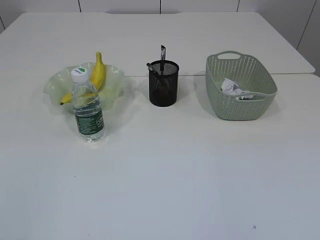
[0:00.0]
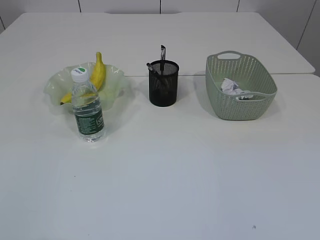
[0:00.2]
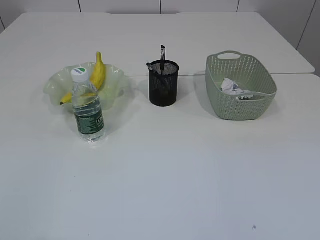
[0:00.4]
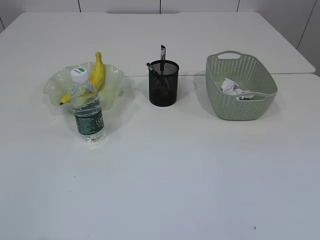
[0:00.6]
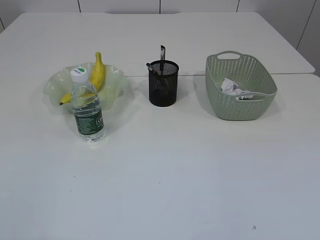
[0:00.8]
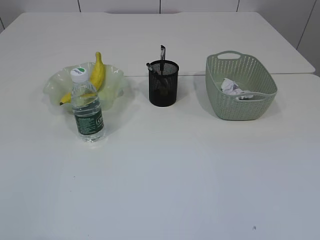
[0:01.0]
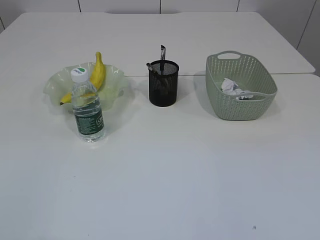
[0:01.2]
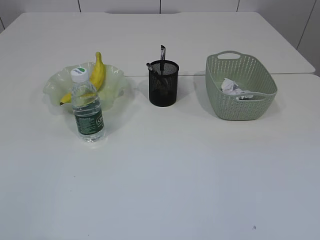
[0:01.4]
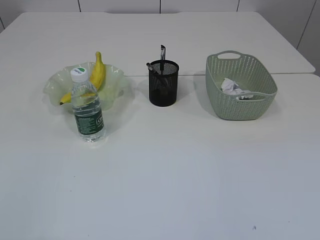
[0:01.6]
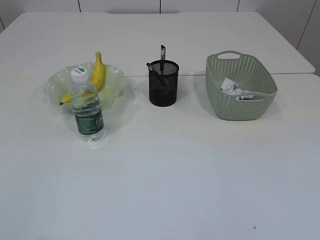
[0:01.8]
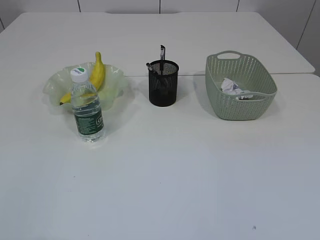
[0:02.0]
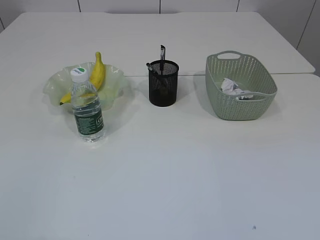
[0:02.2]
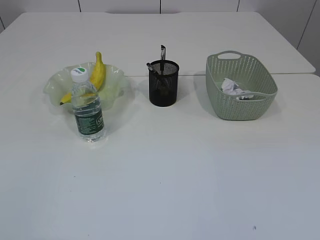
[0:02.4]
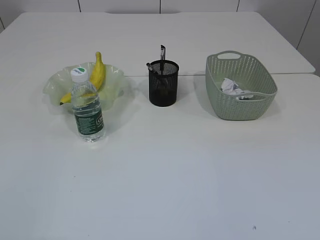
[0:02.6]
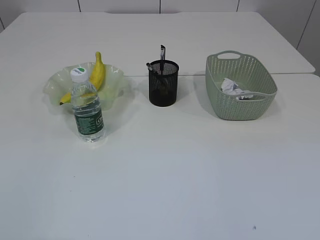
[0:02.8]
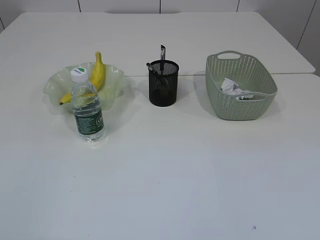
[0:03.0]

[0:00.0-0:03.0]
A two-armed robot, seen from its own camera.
0:01.6 to 0:03.0: The two grippers keep their place.
